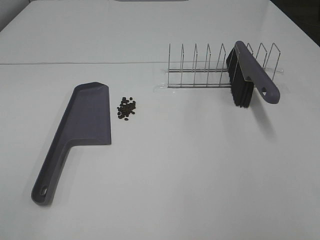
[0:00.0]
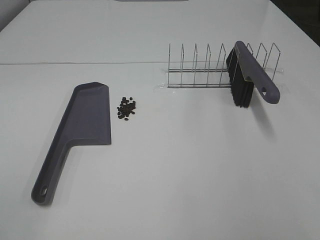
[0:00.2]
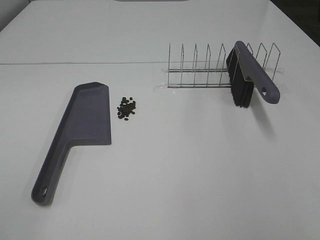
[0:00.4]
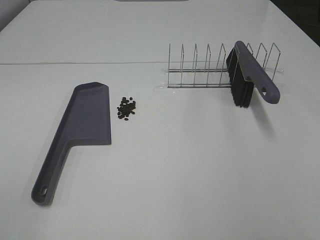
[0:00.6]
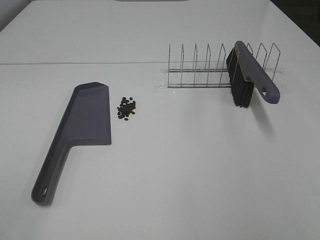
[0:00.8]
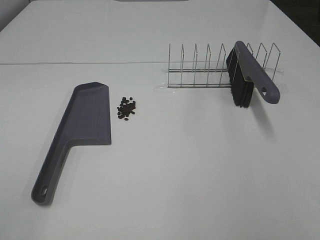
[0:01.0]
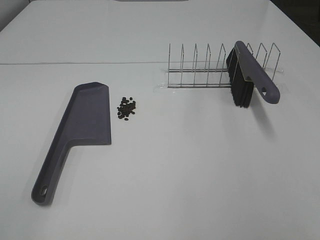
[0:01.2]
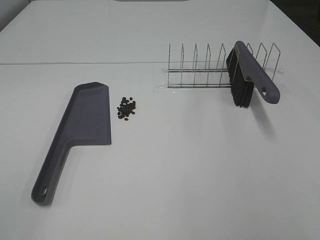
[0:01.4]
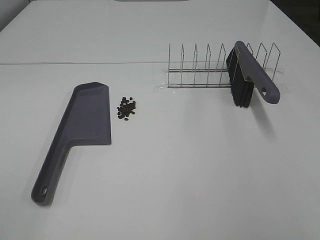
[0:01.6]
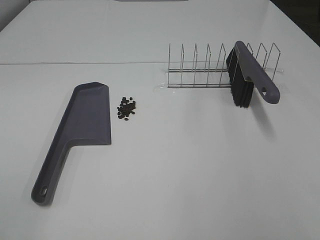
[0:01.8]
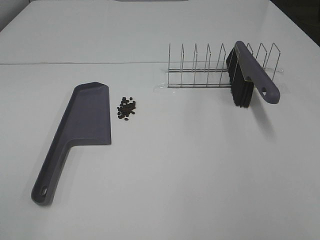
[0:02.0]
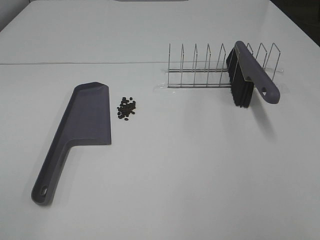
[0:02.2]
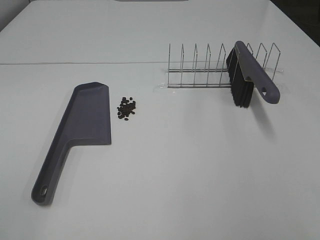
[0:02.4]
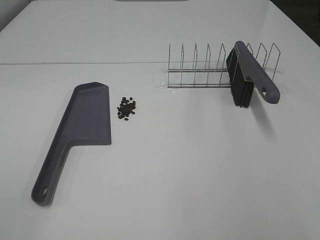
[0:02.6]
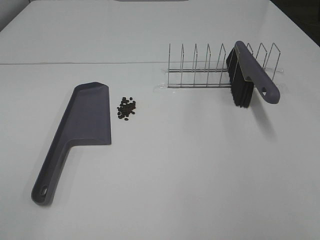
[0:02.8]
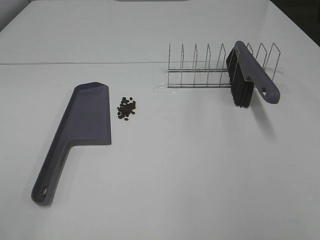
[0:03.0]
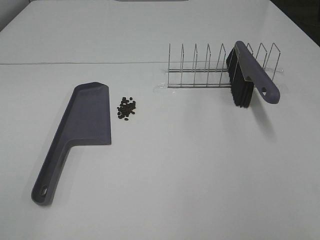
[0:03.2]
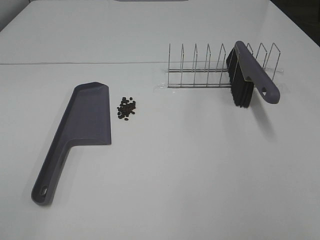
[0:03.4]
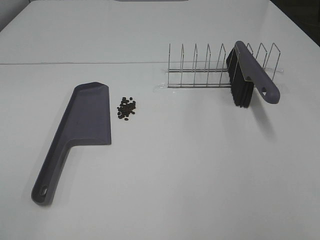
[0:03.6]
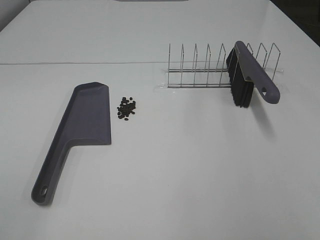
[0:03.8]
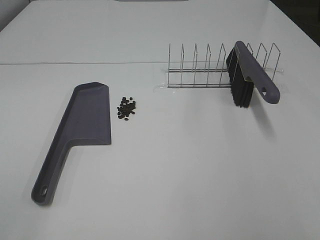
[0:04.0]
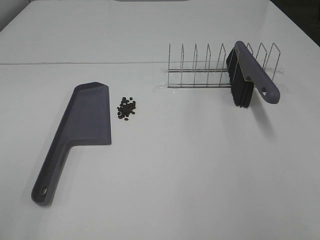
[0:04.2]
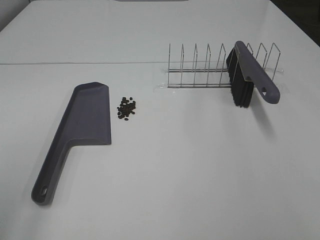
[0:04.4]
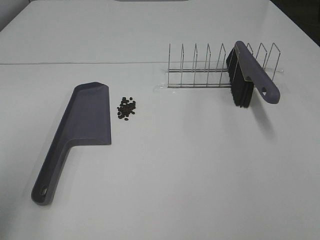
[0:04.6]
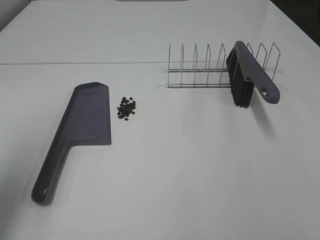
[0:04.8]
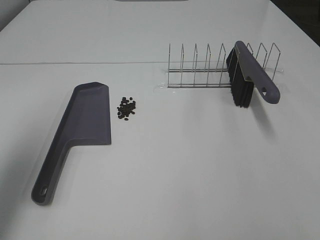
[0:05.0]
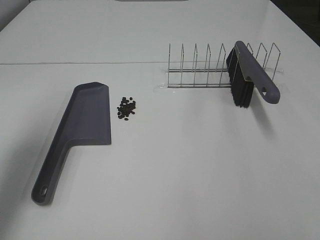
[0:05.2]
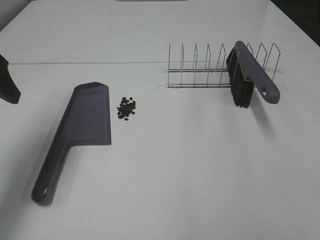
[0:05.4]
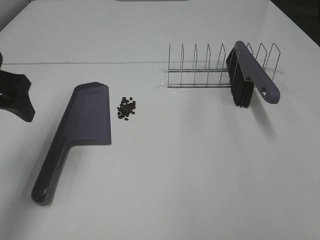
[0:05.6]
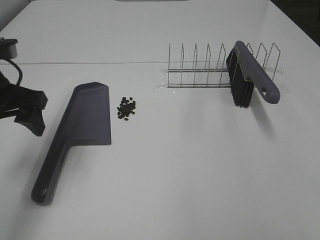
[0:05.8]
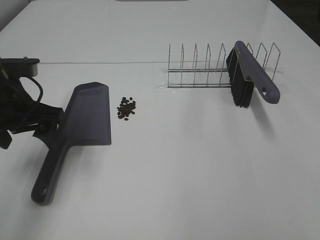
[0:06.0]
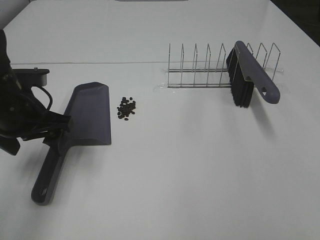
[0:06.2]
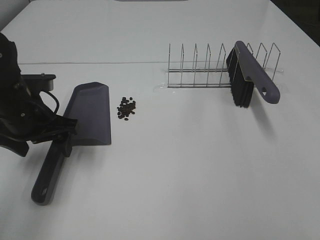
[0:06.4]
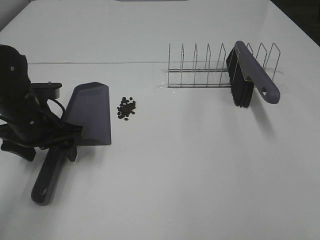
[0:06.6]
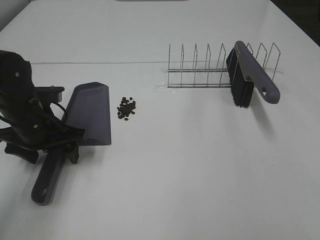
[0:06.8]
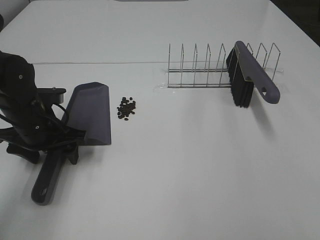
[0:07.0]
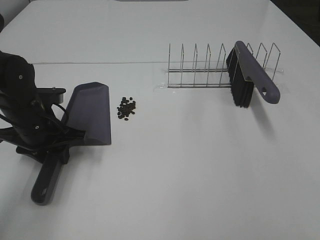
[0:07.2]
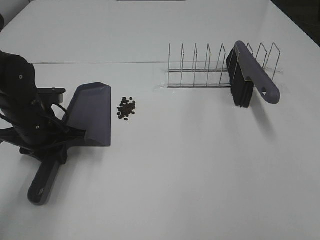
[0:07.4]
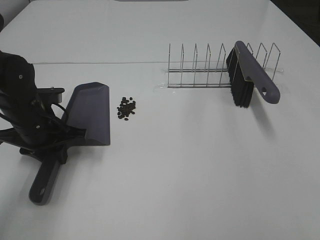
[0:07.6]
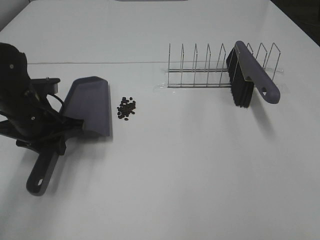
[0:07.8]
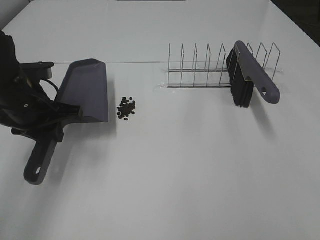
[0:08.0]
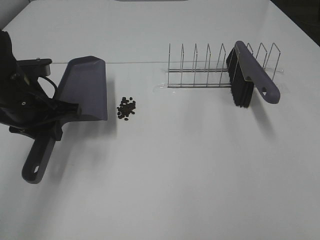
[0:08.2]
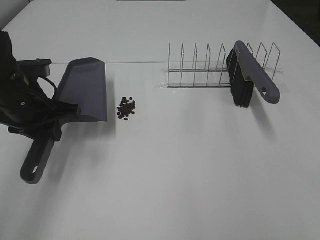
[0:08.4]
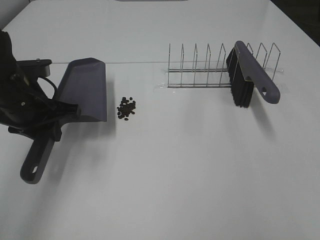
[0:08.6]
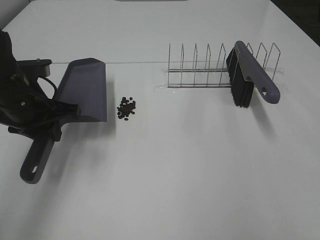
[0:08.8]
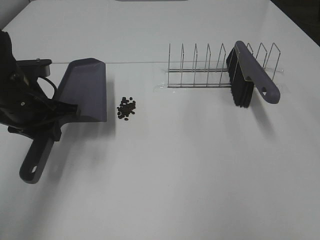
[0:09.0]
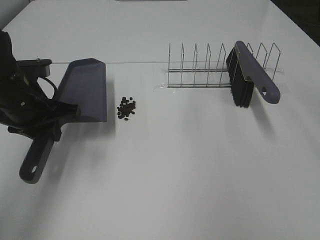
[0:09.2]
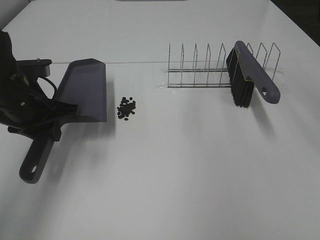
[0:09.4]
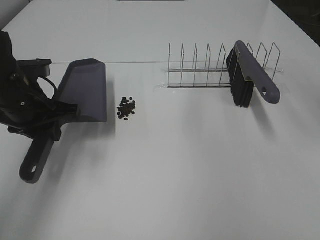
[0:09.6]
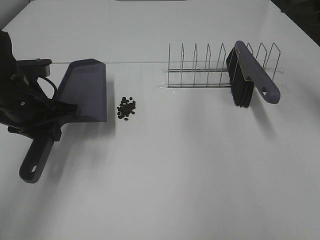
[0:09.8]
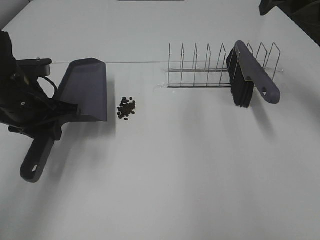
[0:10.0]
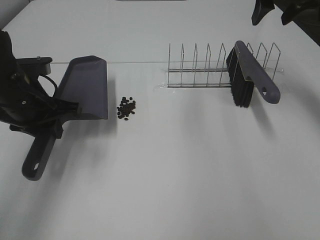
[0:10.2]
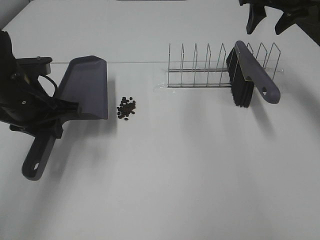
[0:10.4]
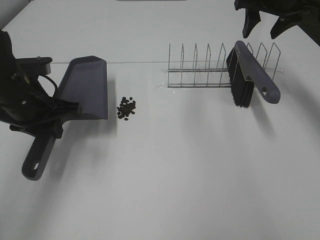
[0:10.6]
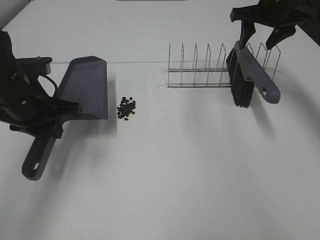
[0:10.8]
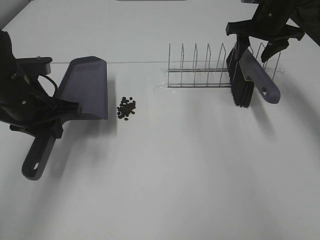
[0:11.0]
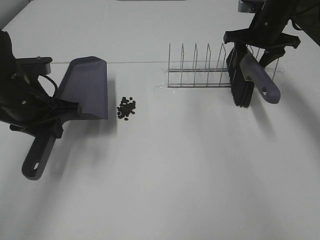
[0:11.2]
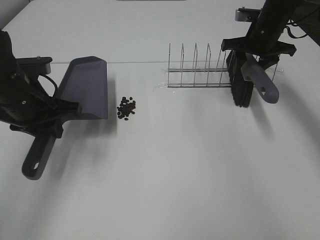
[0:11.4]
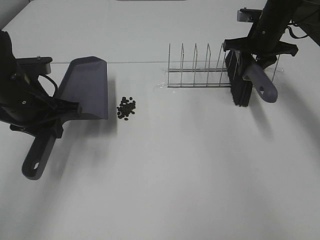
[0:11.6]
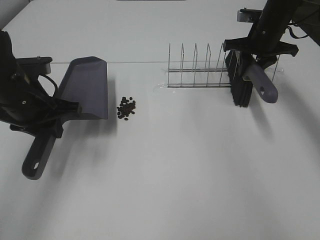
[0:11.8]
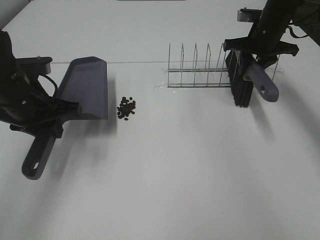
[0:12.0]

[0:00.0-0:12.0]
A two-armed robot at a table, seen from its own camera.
Task of the whole recording: Sweep Coffee Bean.
Step, 0:00.0 to 0:07.4: Left hand: grab the dustpan.
Step, 0:08.4 to 0:11.8: Right hand:grab the broom.
0:00.0 to 0:03.0: Both grippers stay about where they are.
0:04.4 to 0:06.0: The left gripper moves forward and downward, about 25 cm.
0:06.0 to 0:07.6: The left gripper travels downward by about 10 cm, and closes up.
0:07.6 to 0:09.0: The left gripper shifts roughly 5 cm upward.
0:09.0 to 0:10.4: The right gripper is displaced forward by roughly 30 cm.
0:10.4 to 0:12.0: The right gripper is displaced downward by about 10 cm, and closes up.

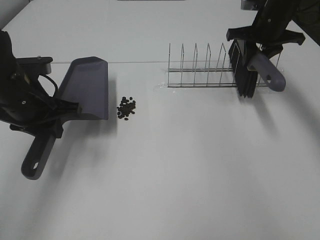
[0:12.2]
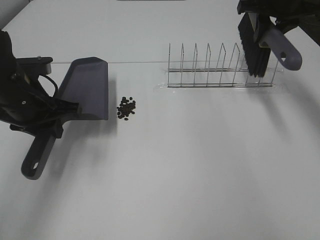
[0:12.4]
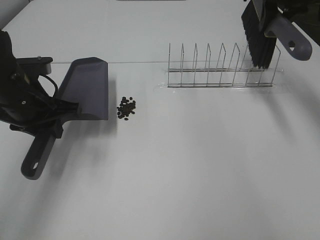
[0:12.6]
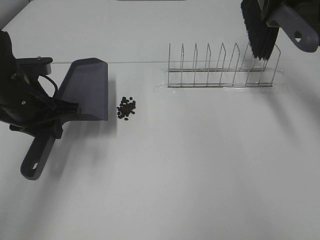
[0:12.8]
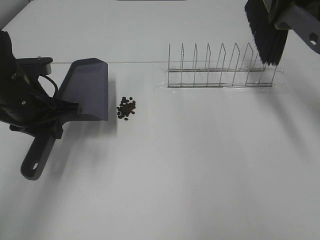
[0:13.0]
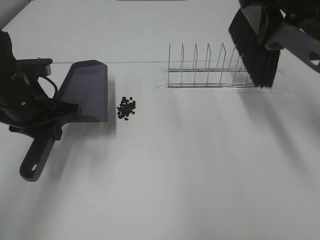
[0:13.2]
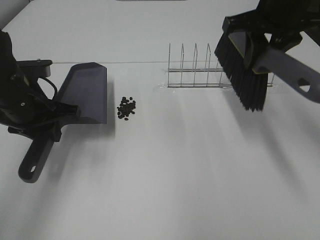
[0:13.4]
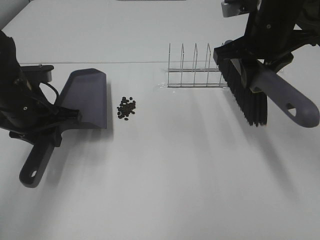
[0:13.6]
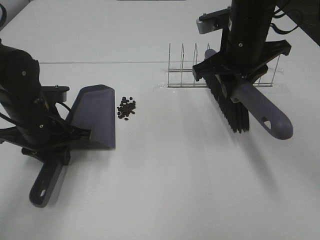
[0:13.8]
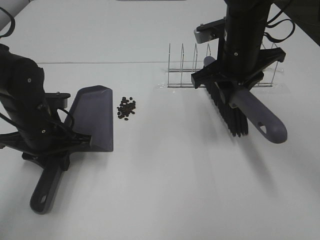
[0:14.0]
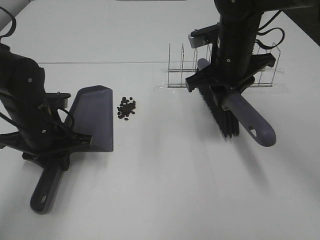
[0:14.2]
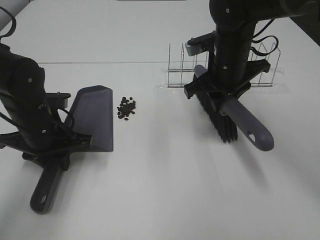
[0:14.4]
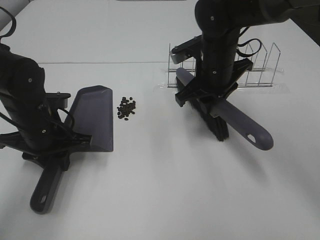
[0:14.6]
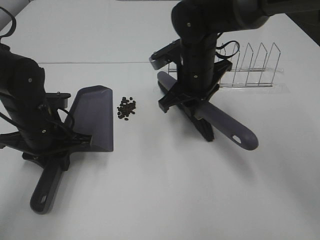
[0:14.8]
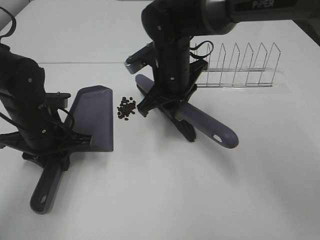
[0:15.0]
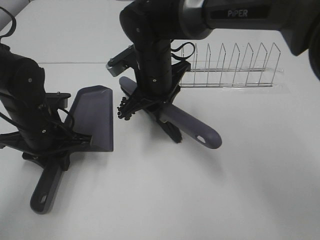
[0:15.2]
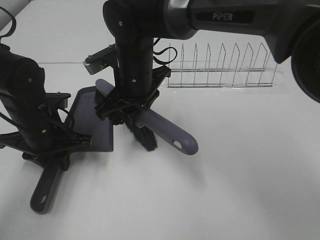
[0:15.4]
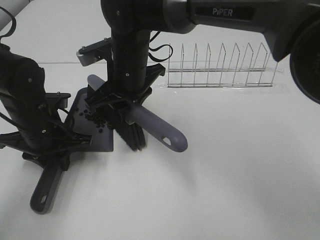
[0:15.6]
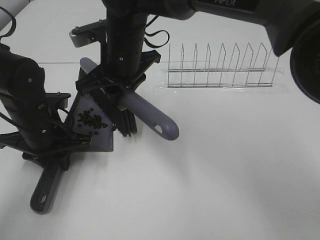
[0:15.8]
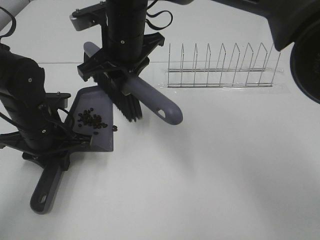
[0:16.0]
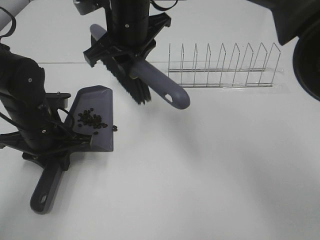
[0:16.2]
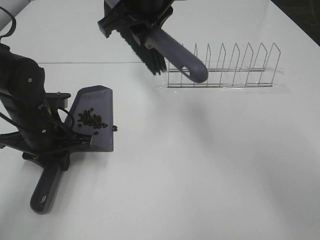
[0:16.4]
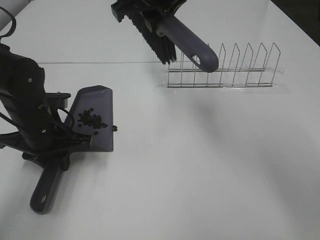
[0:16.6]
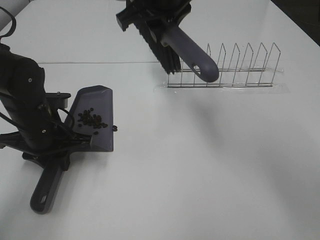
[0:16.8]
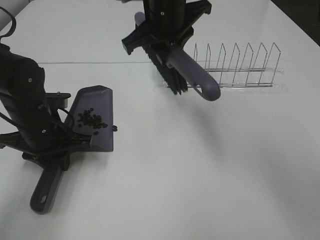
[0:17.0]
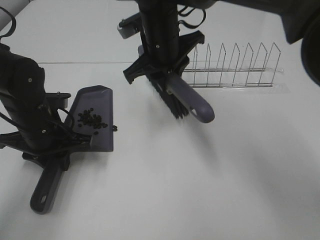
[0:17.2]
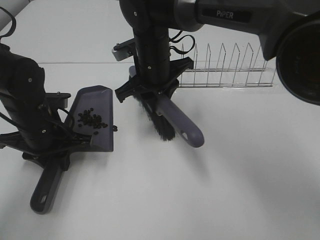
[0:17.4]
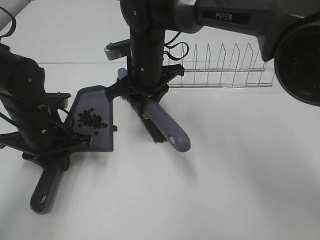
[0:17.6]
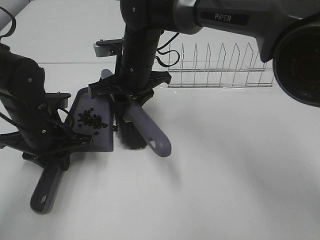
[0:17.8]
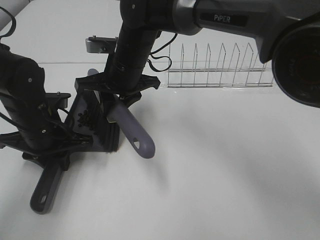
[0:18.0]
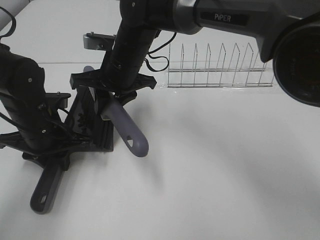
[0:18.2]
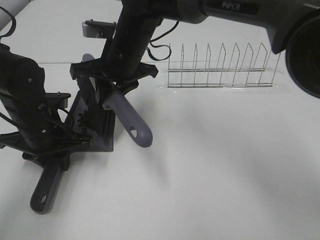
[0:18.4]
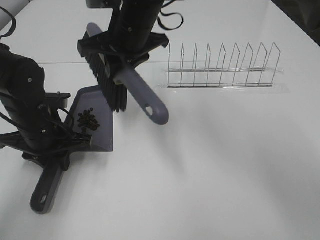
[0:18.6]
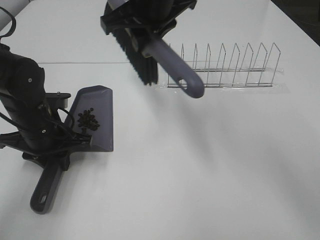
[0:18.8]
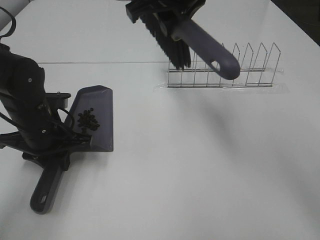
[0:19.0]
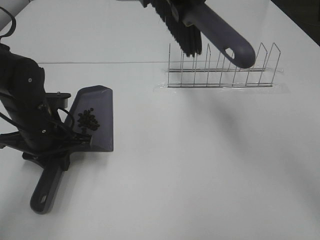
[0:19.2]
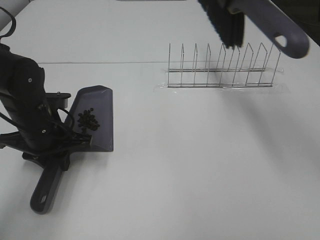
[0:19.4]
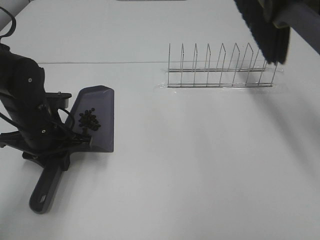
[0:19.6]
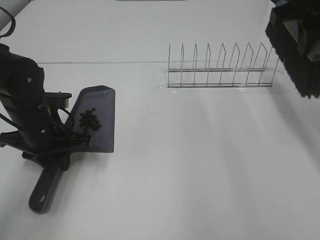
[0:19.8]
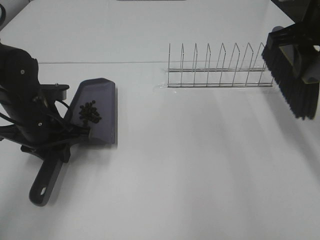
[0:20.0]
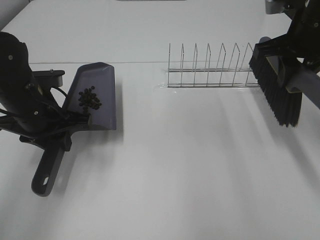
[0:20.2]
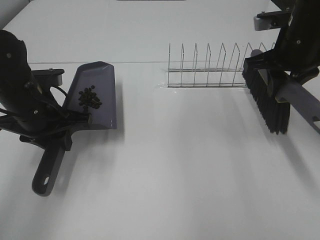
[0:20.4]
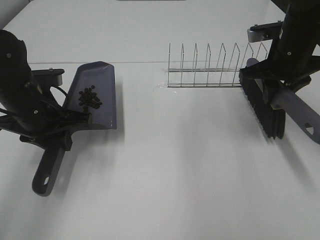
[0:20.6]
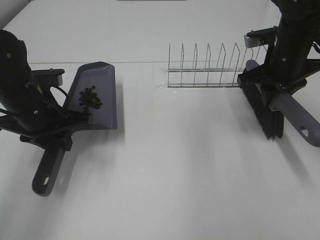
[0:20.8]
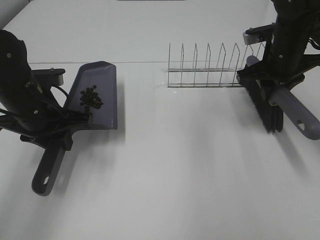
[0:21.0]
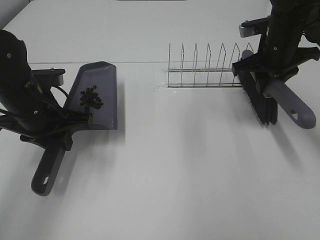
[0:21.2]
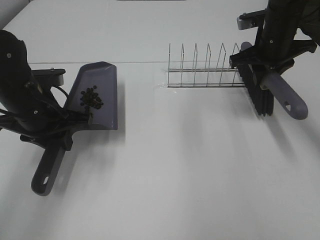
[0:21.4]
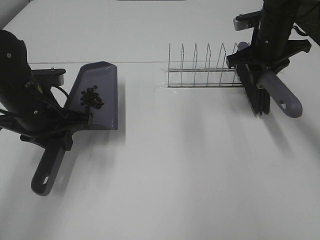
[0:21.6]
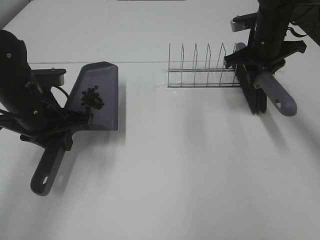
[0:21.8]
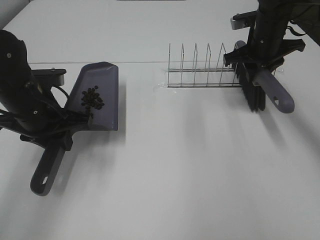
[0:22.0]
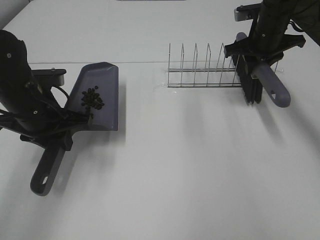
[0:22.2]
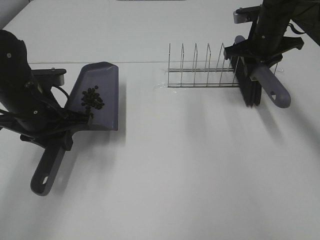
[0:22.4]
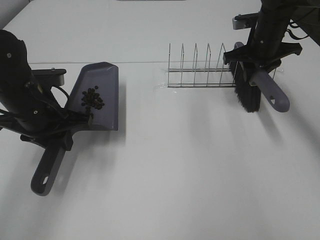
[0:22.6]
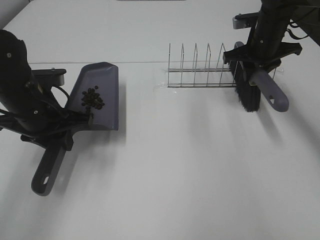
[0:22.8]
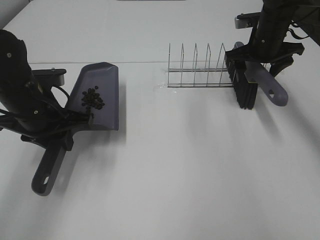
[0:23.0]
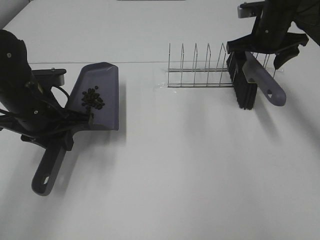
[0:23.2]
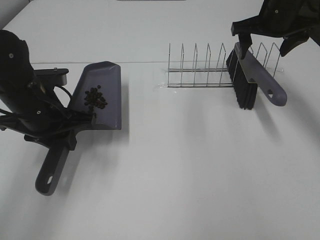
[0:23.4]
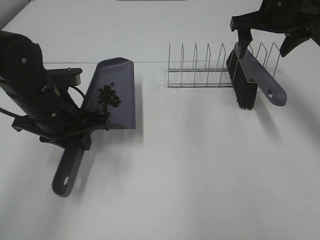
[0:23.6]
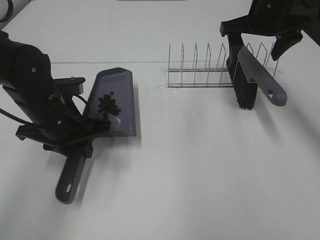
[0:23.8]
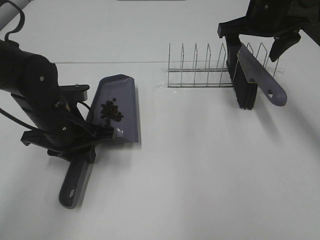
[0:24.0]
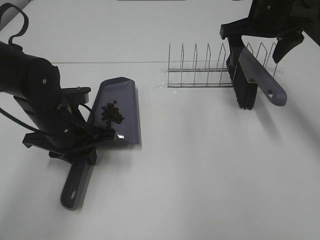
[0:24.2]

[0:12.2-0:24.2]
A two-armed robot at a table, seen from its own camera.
Task of the whole recording: Sweep Coffee Bean.
Step, 0:12.2 to 0:14.4: Left hand: move the dustpan to the left side of the coffee beans.
Step, 0:12.2 to 0:18.6: Right hand:sweep the coffee beans into the dustpan.
Step, 0:18.8 to 0:23.0: Right hand:place the broom on the rack.
0:12.2 to 0:13.8: The right gripper travels backward and to the left by about 20 cm.
0:13.8 to 0:15.2: The right gripper is displaced to the left and downward by about 15 cm.
0:15.2 to 0:16.6: The right gripper heads upward, covering about 15 cm.
0:16.6 to 0:18.2: The right gripper goes about 15 cm downward.
0:18.2 to 0:19.8: The right gripper travels to the right and upward by about 30 cm.
0:19.8 to 0:21.2: The right gripper shifts roughly 15 cm downward and forward.
0:21.2 to 0:22.6: The right gripper heads forward, covering about 5 cm.
0:22.6 to 0:24.2: The right gripper is displaced upward by roughly 10 cm, and opens; the left gripper ends up about 5 cm from where it was.
